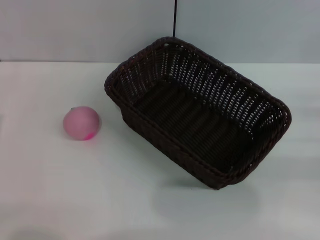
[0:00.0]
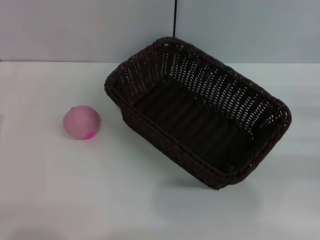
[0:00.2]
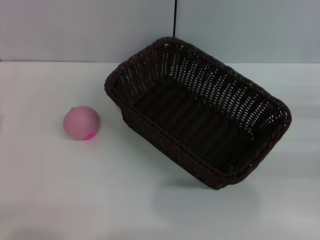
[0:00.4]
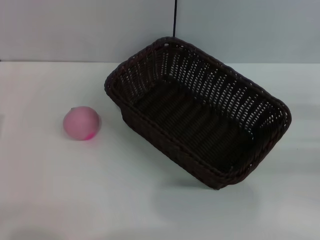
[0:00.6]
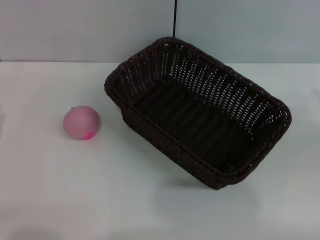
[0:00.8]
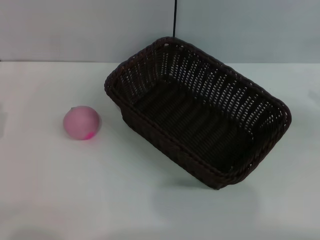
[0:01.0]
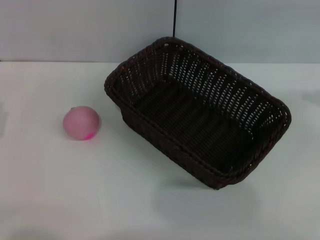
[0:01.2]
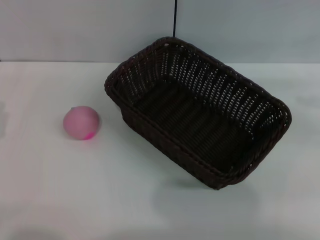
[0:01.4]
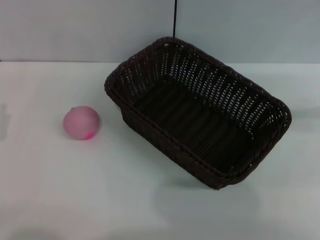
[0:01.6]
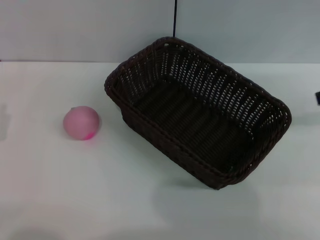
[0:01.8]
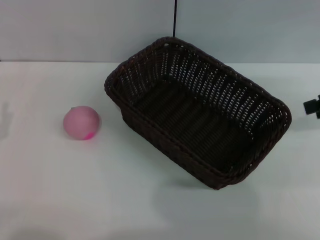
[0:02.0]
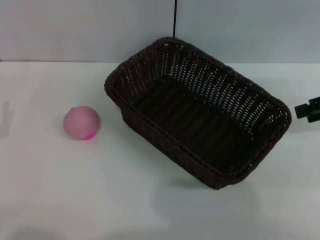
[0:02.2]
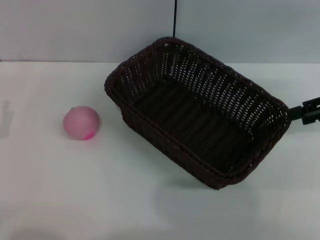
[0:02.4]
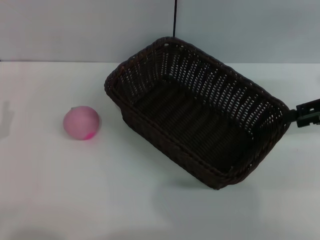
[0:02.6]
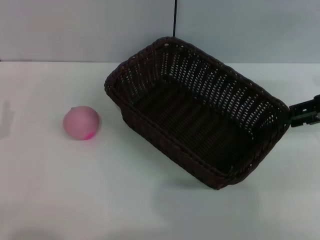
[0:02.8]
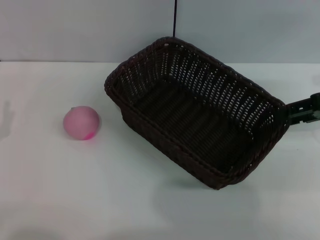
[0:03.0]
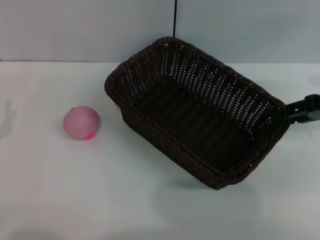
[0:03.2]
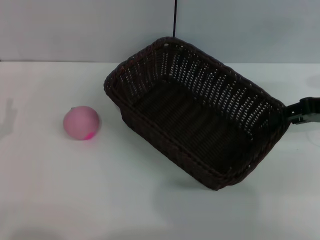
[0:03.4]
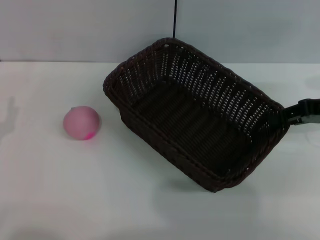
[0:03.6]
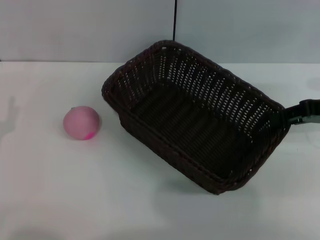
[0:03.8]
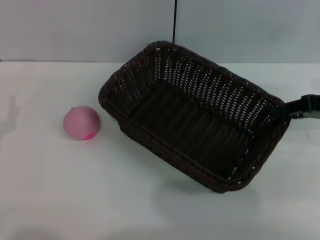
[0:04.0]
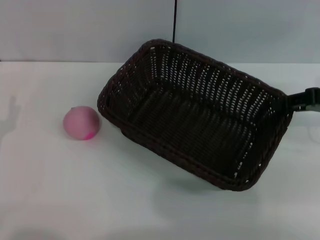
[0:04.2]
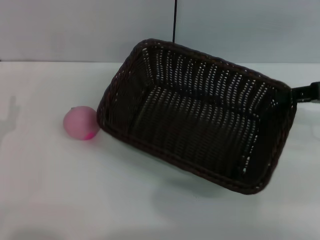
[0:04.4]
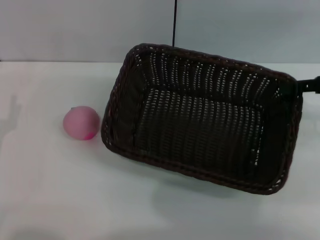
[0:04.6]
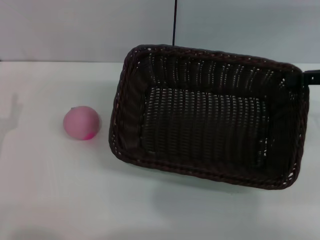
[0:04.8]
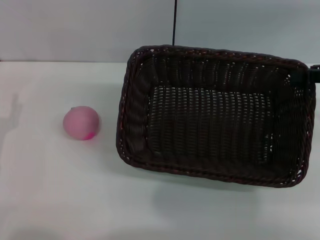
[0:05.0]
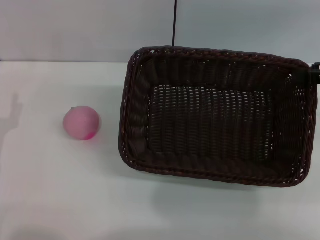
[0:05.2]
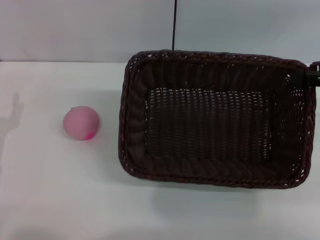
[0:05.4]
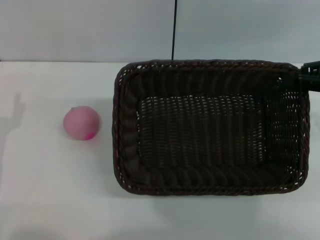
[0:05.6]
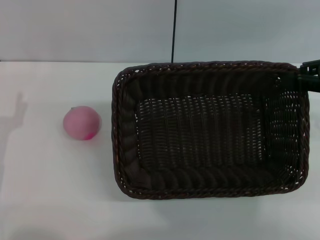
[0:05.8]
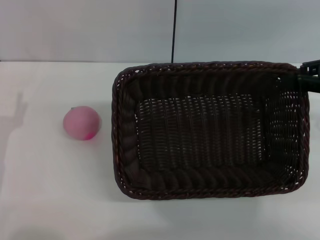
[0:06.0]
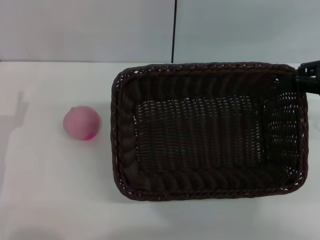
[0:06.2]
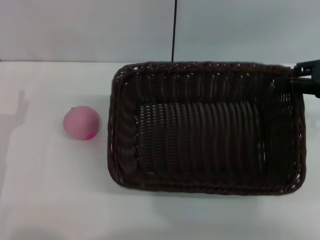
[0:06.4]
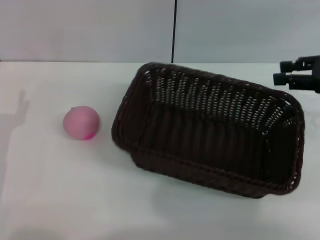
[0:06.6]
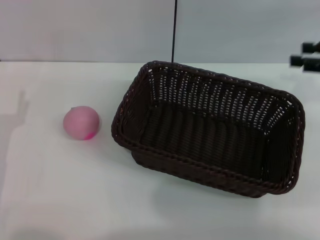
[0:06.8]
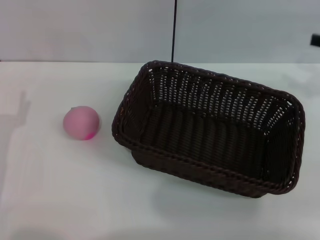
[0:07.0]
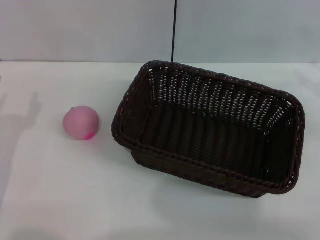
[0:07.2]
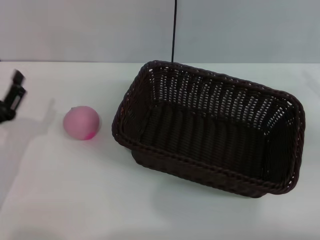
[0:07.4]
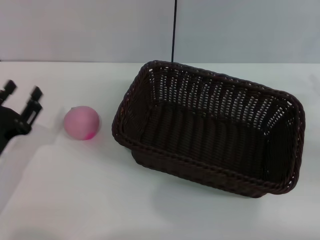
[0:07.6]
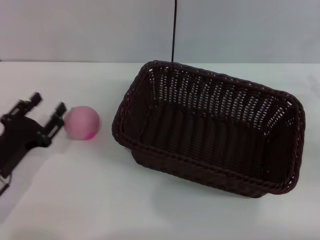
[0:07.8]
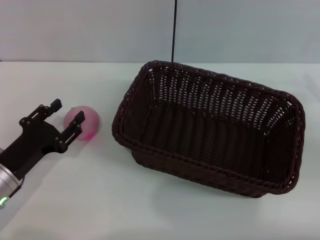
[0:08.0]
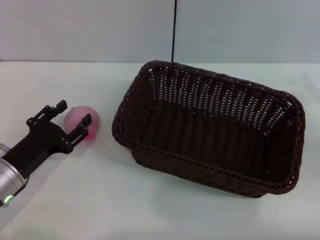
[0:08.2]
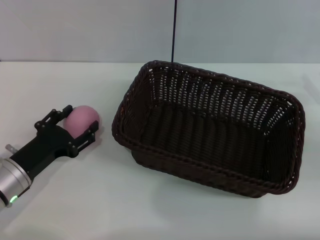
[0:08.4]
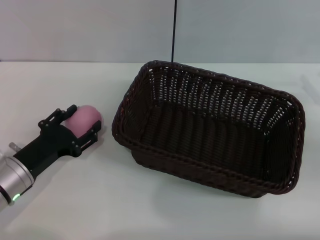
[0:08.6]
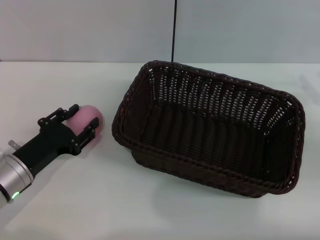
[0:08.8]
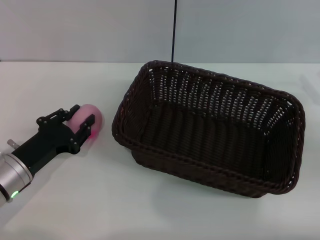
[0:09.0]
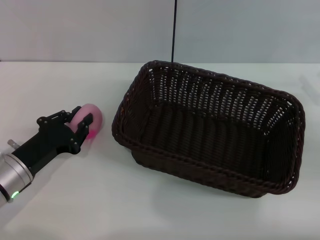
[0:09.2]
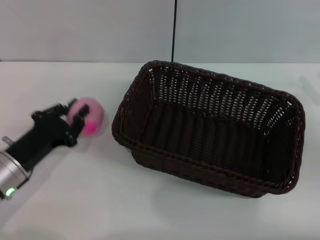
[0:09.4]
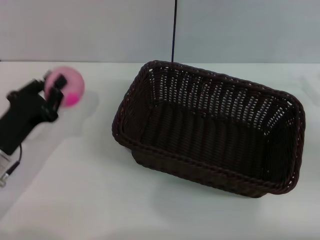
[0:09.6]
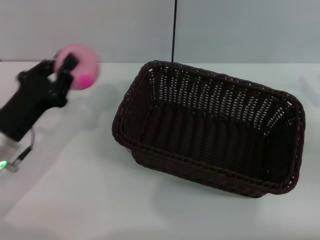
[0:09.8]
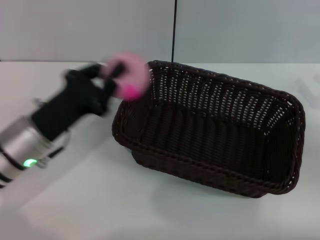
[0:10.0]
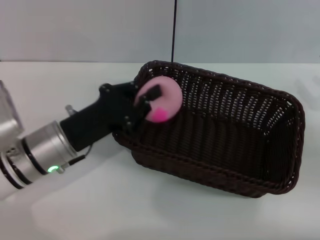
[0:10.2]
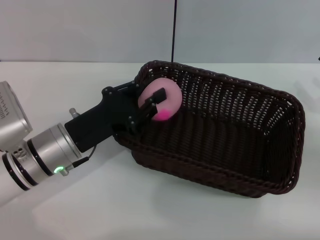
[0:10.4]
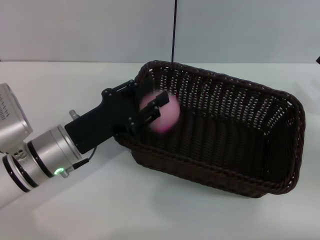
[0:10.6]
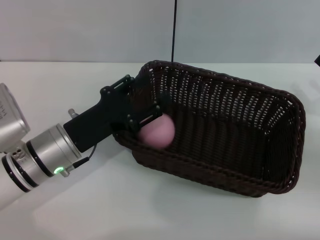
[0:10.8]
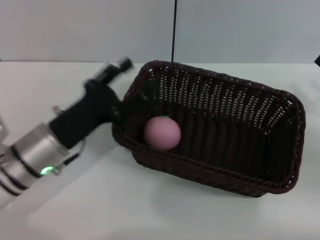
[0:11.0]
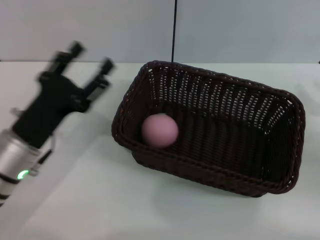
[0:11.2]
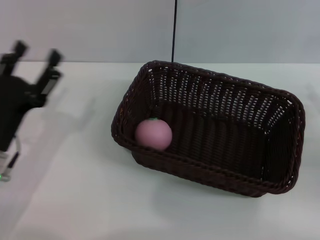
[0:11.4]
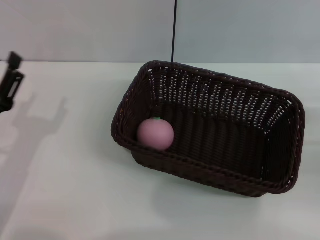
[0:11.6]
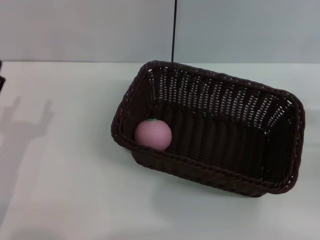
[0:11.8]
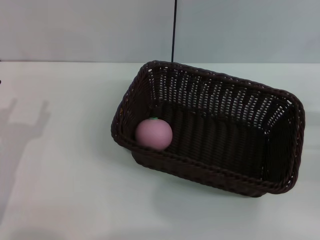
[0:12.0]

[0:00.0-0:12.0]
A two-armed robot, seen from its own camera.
Step, 0:00.0 to 0:05.0: Pick up the dark basket with the right gripper.
Step, 0:05.2 to 0:06.8: Place the dark basket in the center of view with the right gripper.
Step, 0:07.0 to 0:09.8: Pick up the peach with the left gripper.
Step, 0:10.0 to 0:11.0: Place the peach into the basket with the left gripper.
0:00.0 to 0:01.6: The right gripper is displaced upward and forward by some 20 cm.
0:01.6 to 0:03.0: The right gripper travels downward and to the left by some 10 cm.
0:03.0 to 0:04.4: The right gripper closes its fingers.
0:06.0 to 0:07.6: The right gripper heads downward and backward, covering roughly 10 cm, and opens its fingers.
0:09.0 to 0:10.4: The left gripper moves to the right, roughly 5 cm, and closes up.
0:10.4 to 0:12.0: The right gripper shifts by approximately 5 cm; the left gripper goes approximately 15 cm to the left and backward, and opens up.

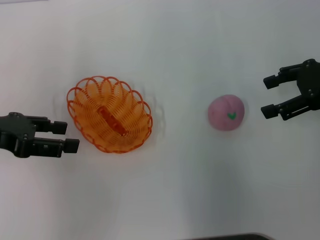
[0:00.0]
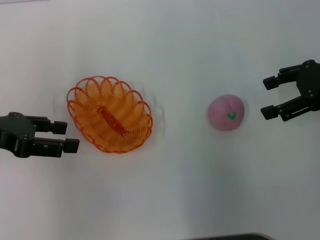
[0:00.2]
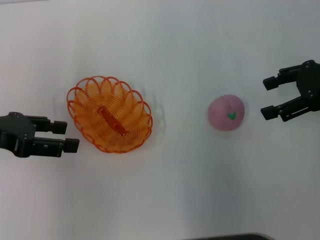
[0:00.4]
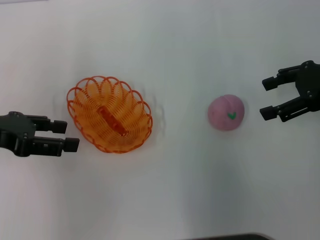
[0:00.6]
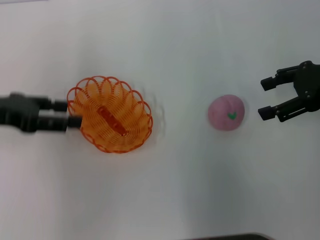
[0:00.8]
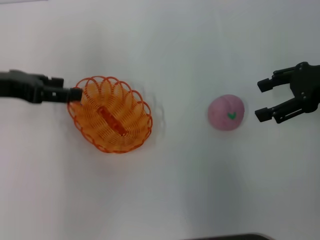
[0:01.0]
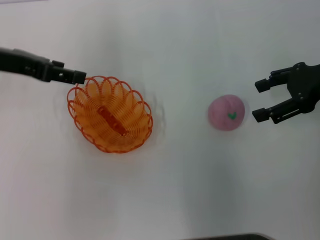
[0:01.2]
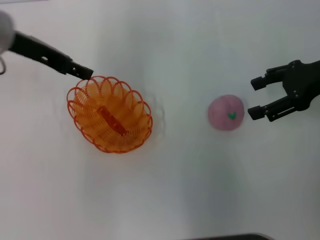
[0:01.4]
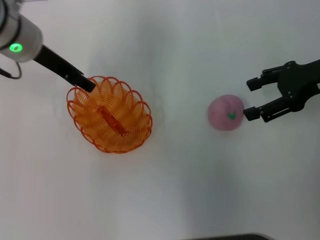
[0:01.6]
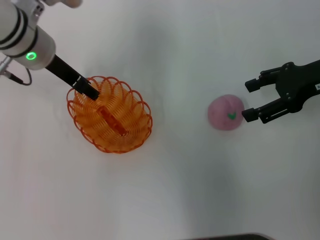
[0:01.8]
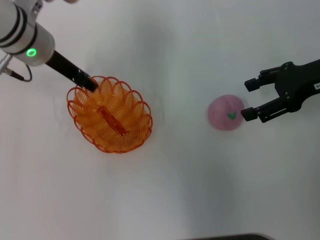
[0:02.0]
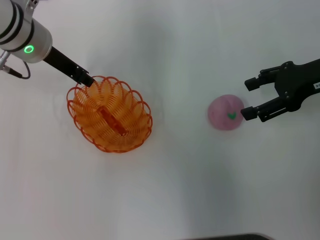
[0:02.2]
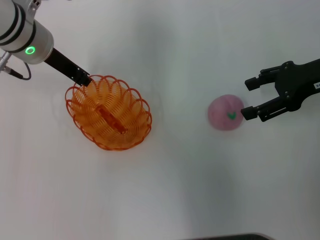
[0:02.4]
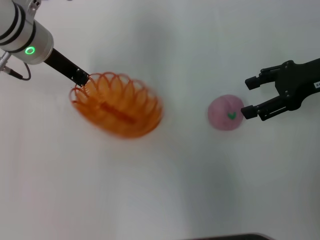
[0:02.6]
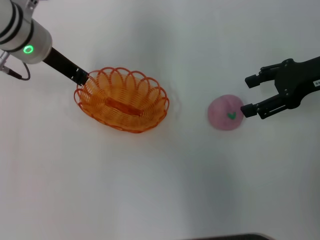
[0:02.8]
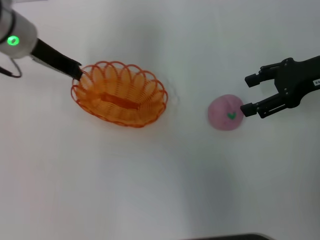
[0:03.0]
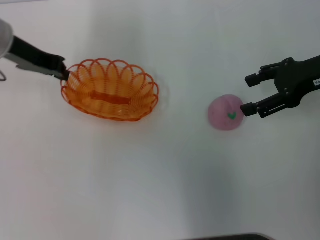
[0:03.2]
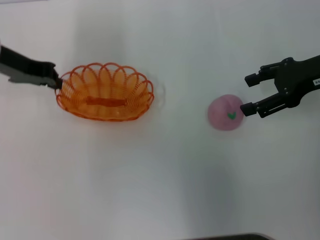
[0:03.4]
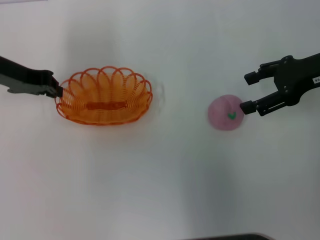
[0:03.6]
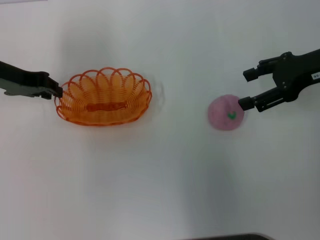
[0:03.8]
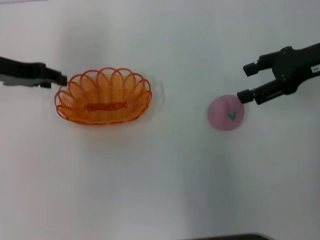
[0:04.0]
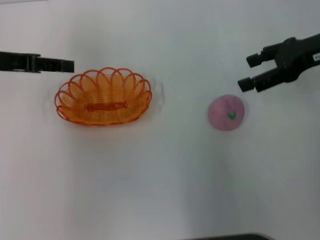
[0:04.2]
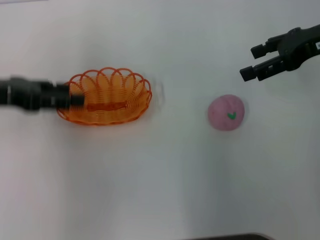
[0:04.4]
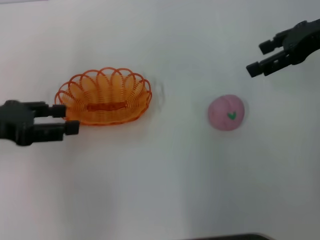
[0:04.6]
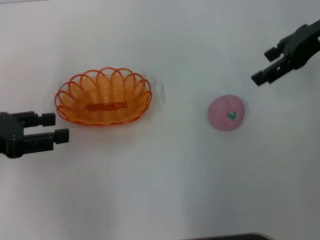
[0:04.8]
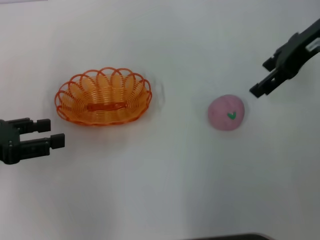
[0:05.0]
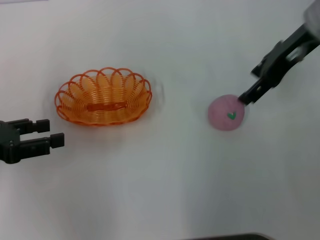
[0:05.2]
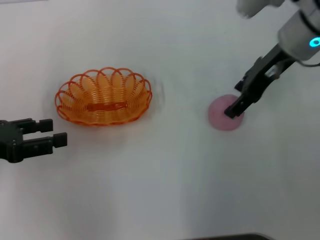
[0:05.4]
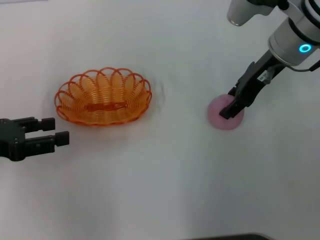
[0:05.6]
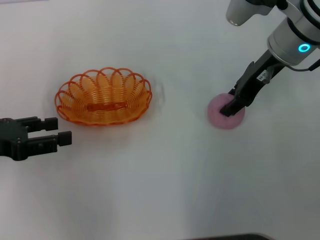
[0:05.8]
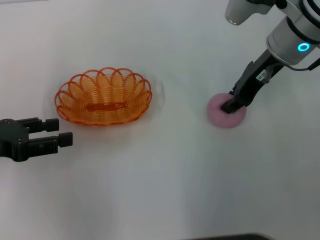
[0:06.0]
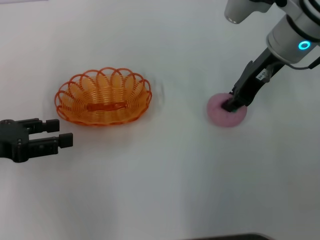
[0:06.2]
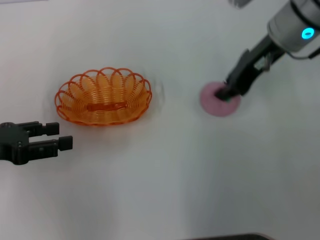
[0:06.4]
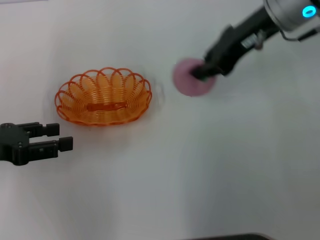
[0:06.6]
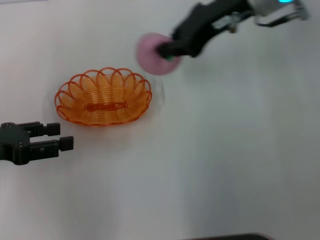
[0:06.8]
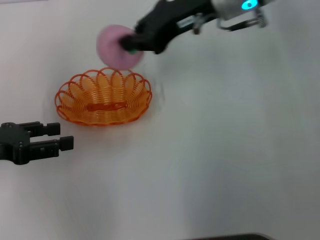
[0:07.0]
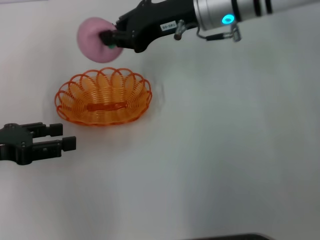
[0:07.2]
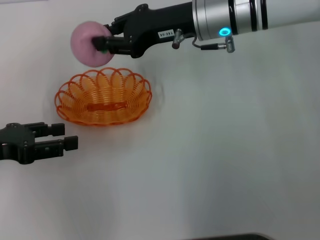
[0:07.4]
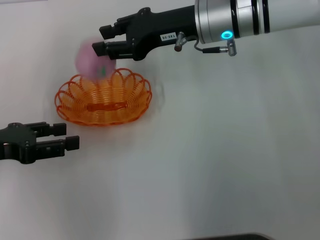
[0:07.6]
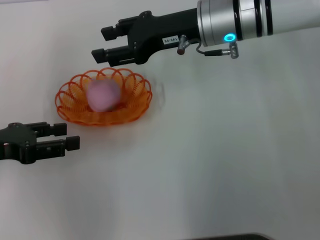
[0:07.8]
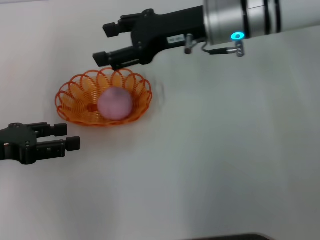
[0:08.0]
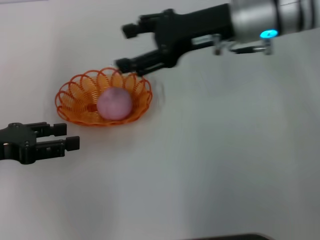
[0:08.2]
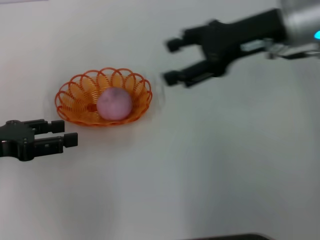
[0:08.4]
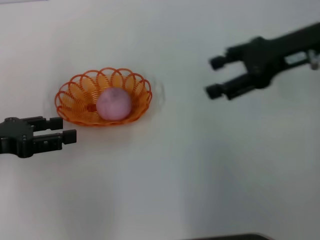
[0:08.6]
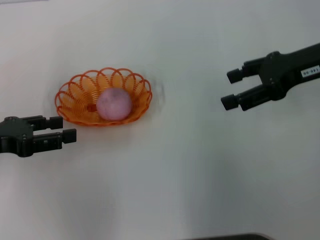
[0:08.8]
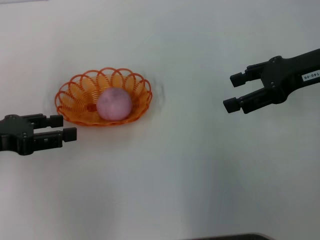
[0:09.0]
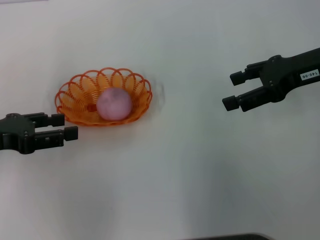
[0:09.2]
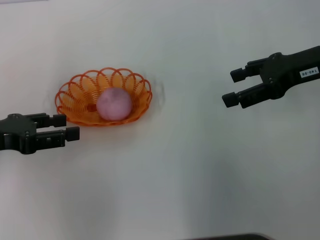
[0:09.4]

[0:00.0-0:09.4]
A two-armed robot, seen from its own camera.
Step, 0:00.0 to 0:02.8: Pick up the basket with the left gripper.
Step, 0:03.0 to 0:04.8: Place the basket in the center of view with the left gripper.
Step, 0:05.0 to 0:06.4: Pick up the peach with the right gripper.
Step, 0:06.6 to 0:08.4: Place the peach into the basket with the right gripper.
0:00.0 to 0:01.6: The left gripper goes some 15 cm to the right and forward.
0:01.6 to 0:03.2: The left gripper heads to the left, covering some 5 cm, and closes.
0:03.2 to 0:04.8: The right gripper travels upward by about 5 cm, while the left gripper travels backward and to the left by roughly 20 cm, and opens.
0:04.8 to 0:06.2: The right gripper goes roughly 10 cm to the left and downward, and closes.
0:06.2 to 0:07.8: The right gripper goes some 5 cm to the left.
0:07.8 to 0:09.4: The right gripper travels to the right by approximately 15 cm, and opens its fingers.
